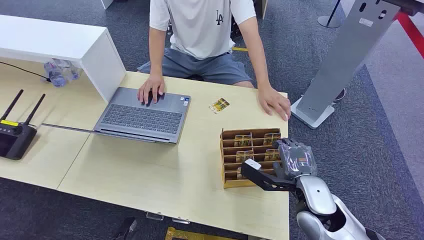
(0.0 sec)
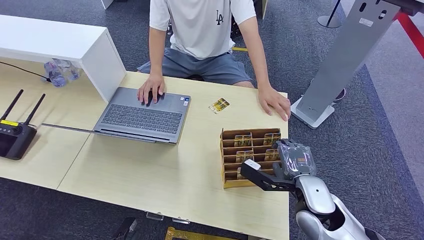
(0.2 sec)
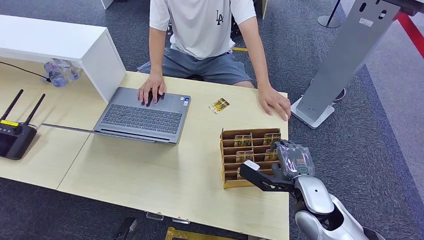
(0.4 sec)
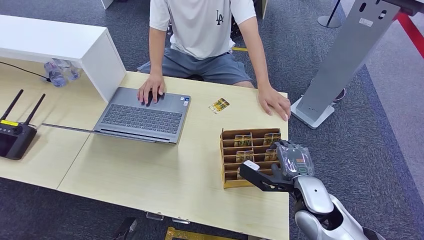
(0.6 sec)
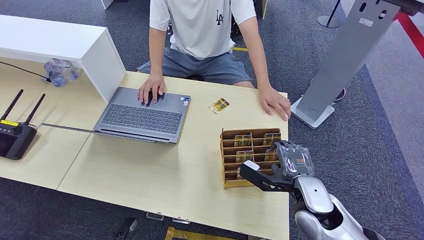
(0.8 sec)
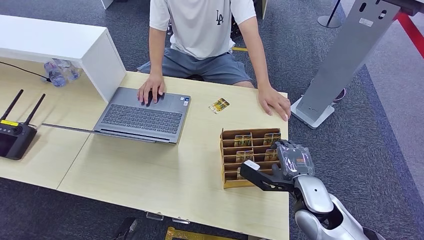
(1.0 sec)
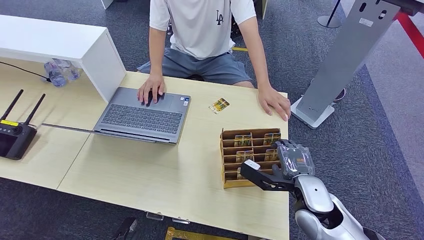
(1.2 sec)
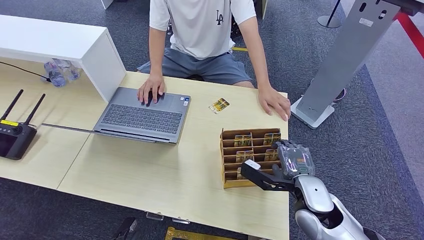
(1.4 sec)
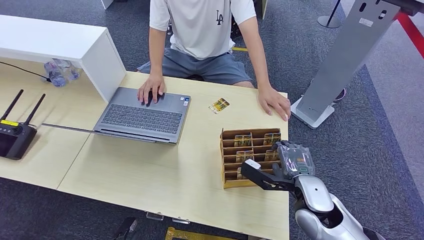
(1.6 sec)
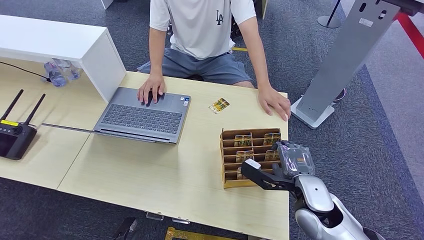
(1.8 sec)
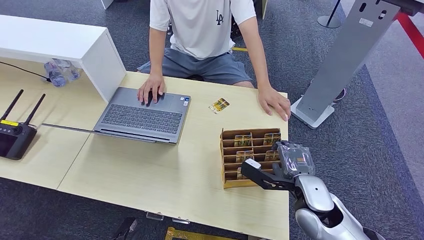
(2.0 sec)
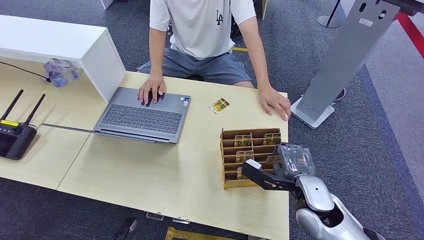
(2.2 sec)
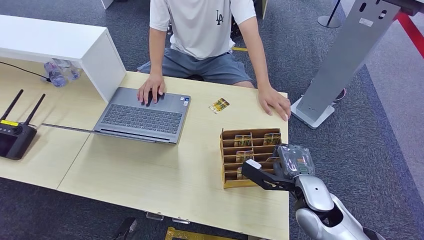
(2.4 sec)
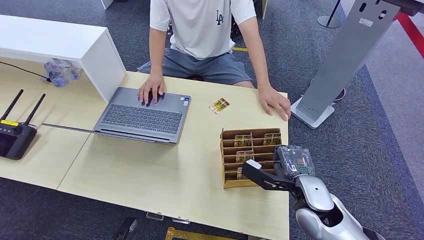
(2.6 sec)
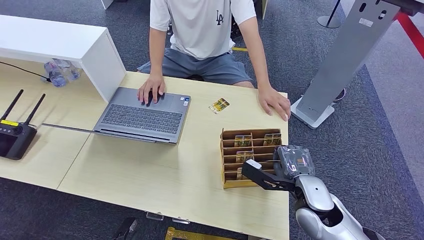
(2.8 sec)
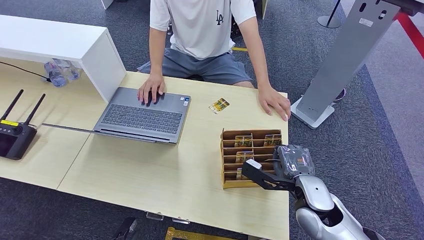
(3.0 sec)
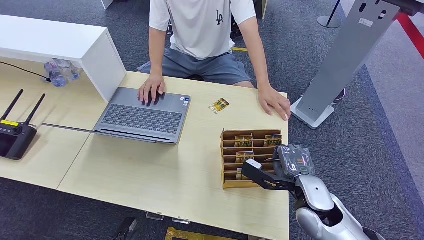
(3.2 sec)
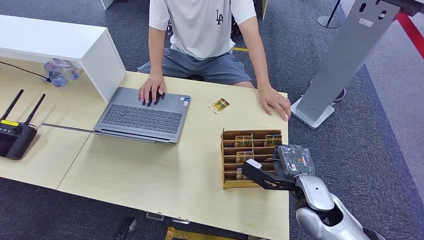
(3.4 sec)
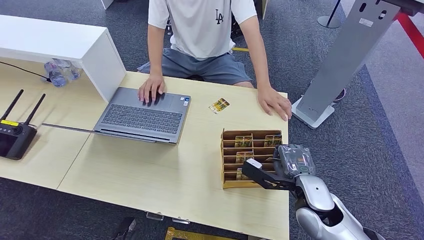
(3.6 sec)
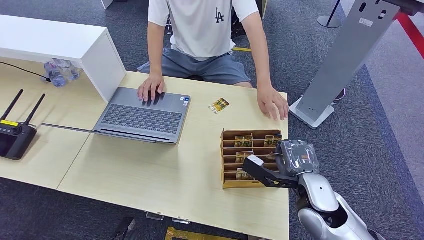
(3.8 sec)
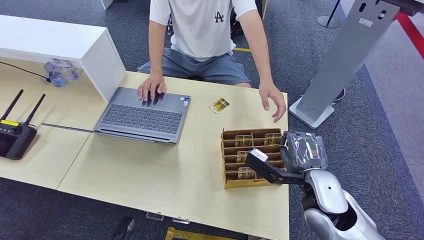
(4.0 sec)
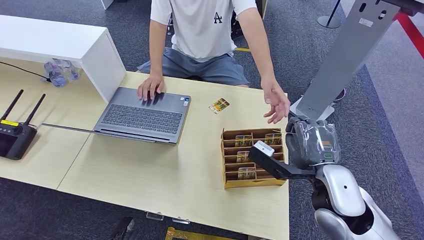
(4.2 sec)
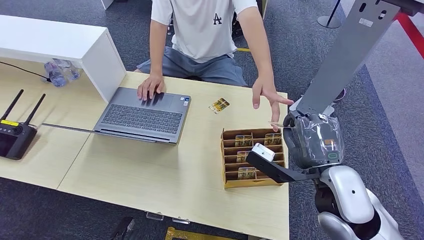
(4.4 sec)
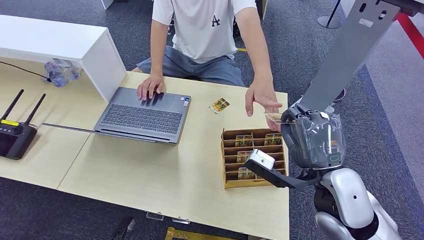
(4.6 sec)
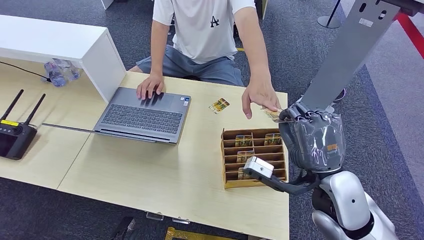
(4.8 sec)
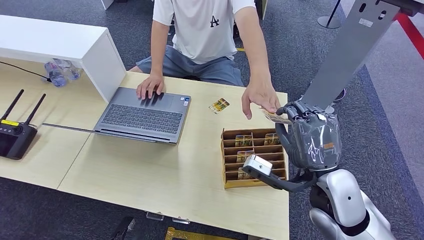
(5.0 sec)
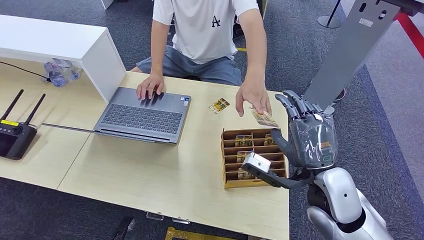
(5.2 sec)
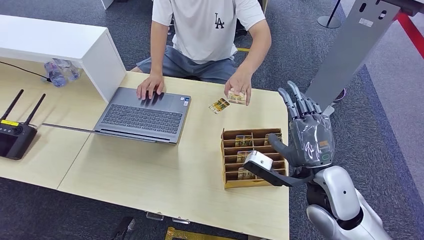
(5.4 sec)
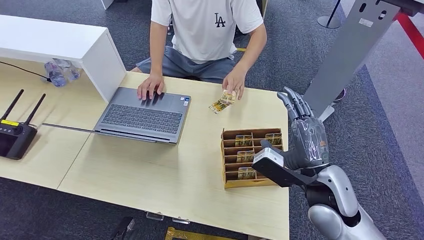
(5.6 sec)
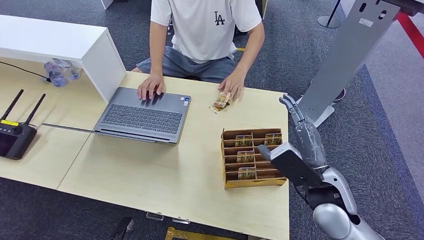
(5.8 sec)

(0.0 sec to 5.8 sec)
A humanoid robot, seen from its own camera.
Step, 0.0 sec - 3.8 sec: Pick up the room card from the card holder.
Step, 4.0 sec - 5.8 sec: Hand the room card to the target.
1.4 sec - 2.8 sec: The two hands keep their place.
2.8 sec - 4.4 sec: The right hand goes about 10 cm upward.
4.4 sec - 5.8 sec: The right hand changes place by approximately 5 cm.

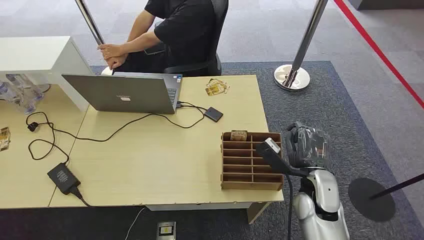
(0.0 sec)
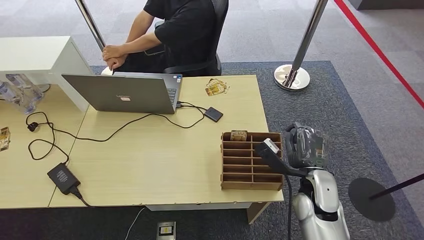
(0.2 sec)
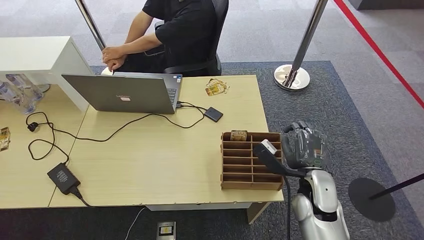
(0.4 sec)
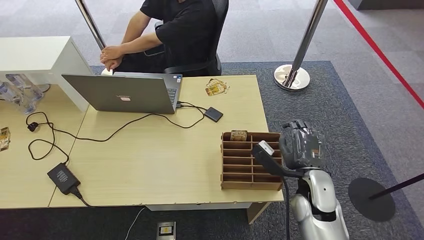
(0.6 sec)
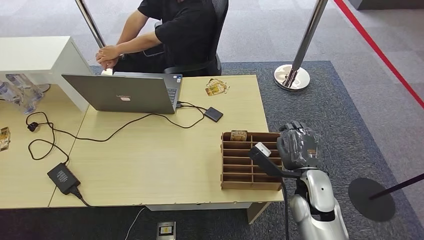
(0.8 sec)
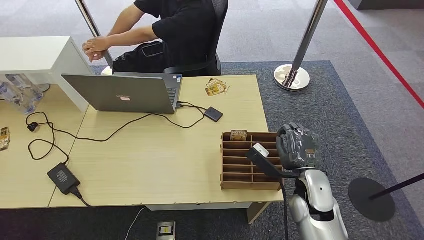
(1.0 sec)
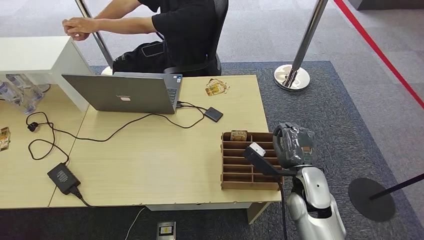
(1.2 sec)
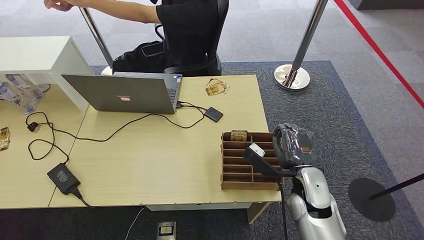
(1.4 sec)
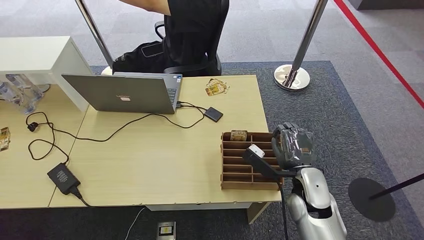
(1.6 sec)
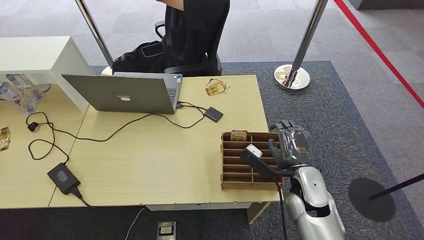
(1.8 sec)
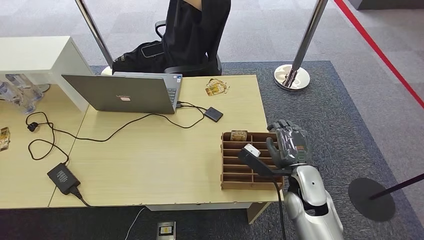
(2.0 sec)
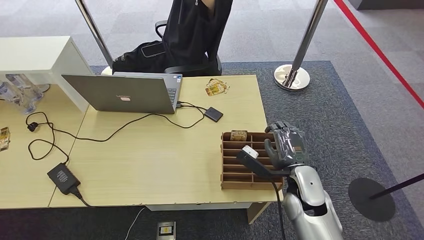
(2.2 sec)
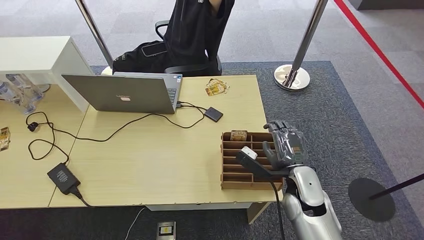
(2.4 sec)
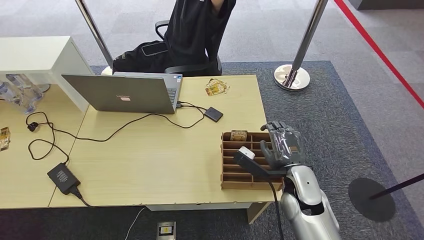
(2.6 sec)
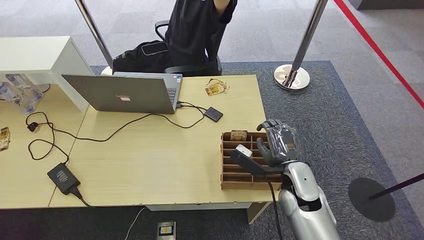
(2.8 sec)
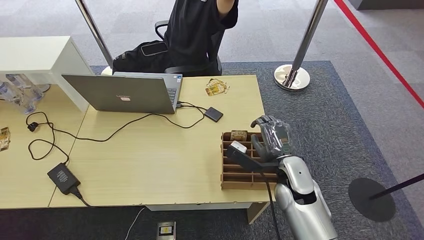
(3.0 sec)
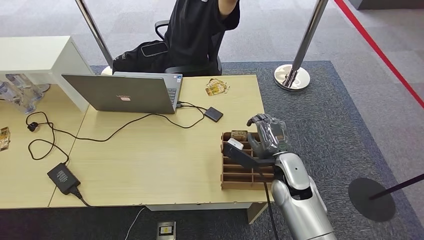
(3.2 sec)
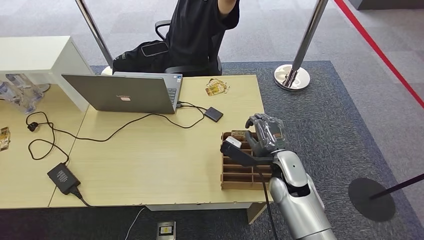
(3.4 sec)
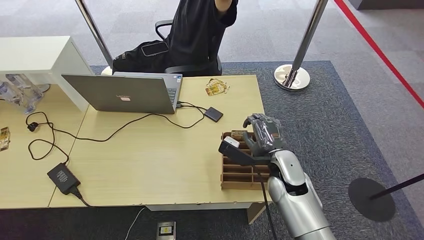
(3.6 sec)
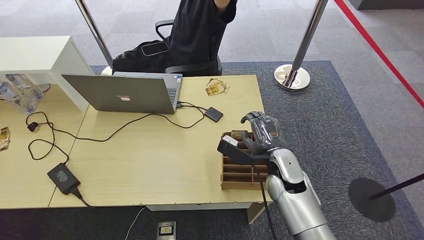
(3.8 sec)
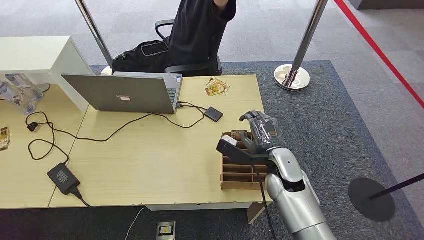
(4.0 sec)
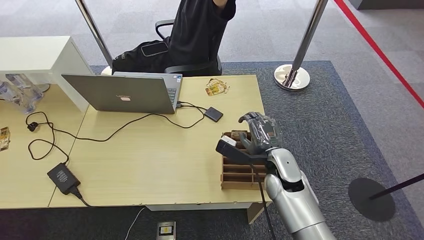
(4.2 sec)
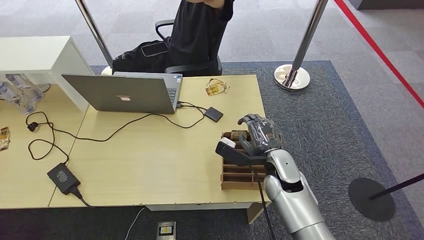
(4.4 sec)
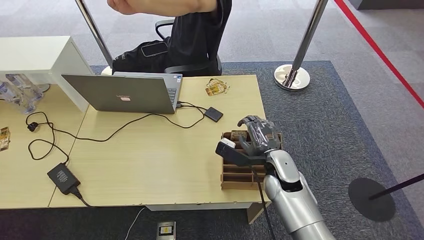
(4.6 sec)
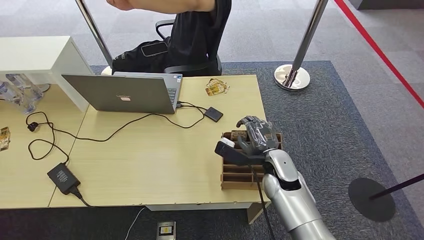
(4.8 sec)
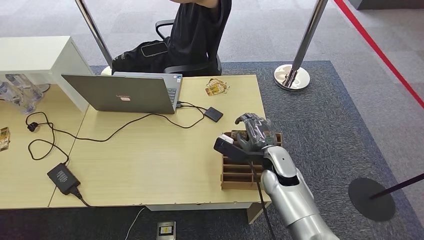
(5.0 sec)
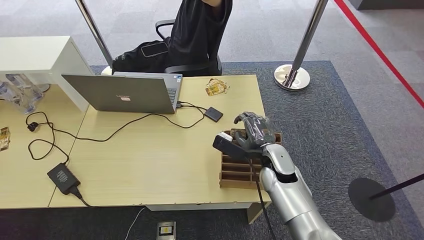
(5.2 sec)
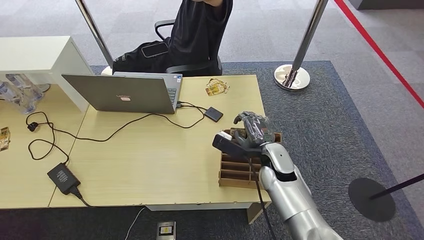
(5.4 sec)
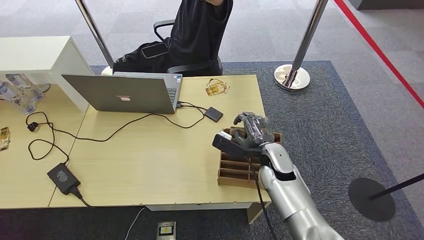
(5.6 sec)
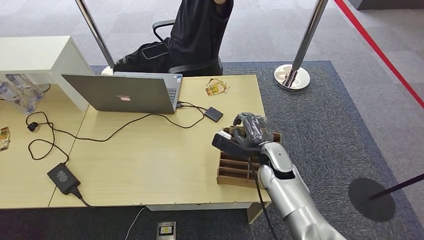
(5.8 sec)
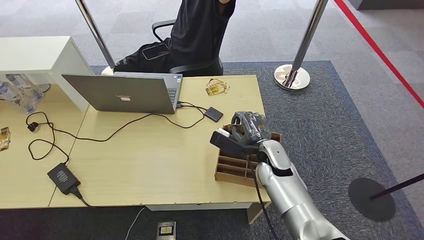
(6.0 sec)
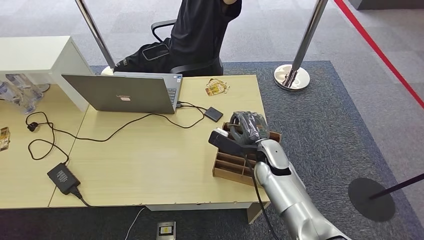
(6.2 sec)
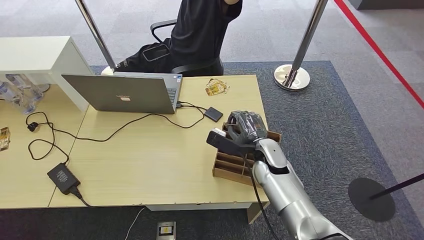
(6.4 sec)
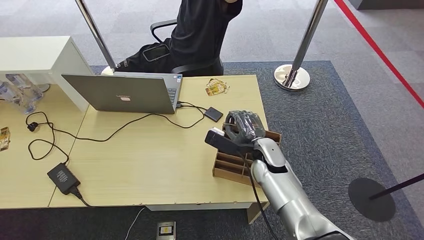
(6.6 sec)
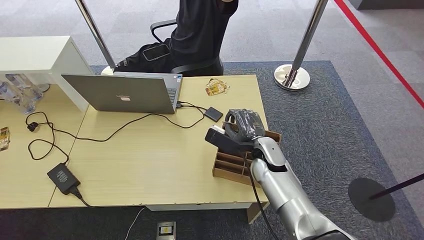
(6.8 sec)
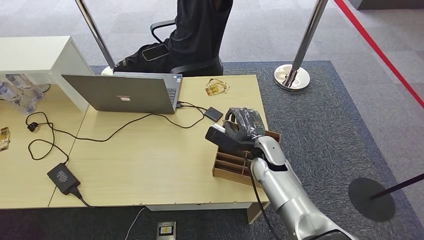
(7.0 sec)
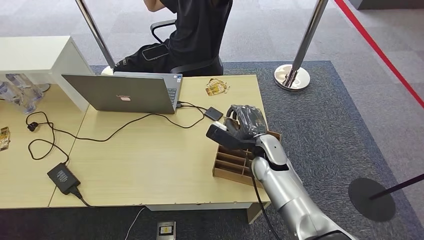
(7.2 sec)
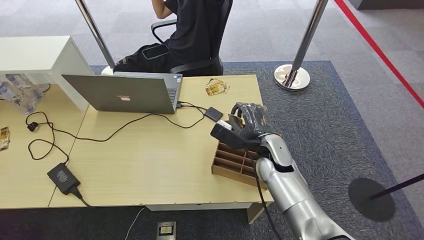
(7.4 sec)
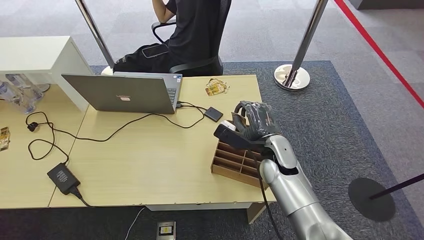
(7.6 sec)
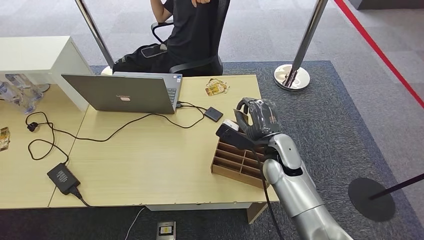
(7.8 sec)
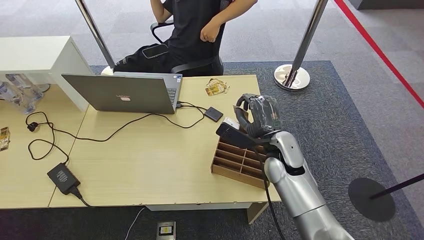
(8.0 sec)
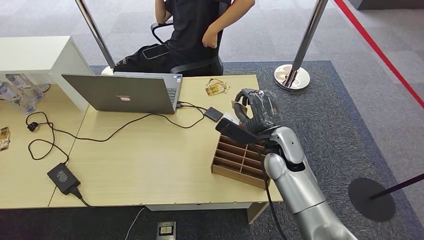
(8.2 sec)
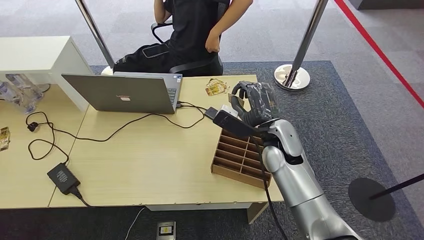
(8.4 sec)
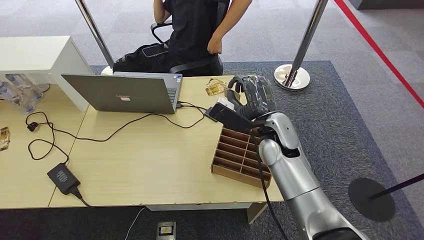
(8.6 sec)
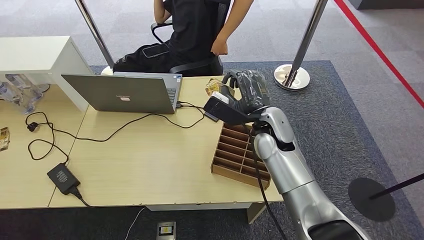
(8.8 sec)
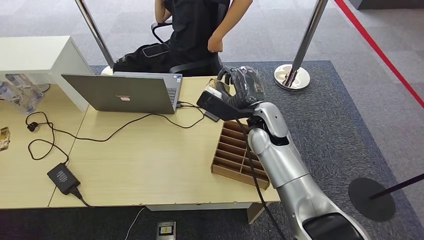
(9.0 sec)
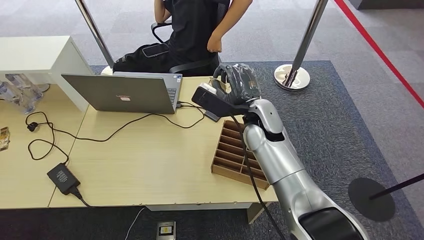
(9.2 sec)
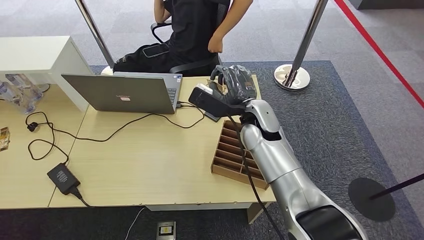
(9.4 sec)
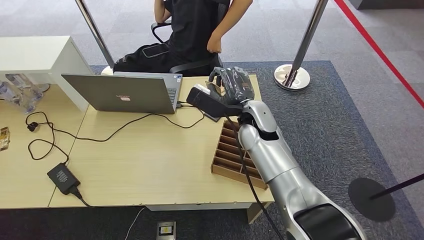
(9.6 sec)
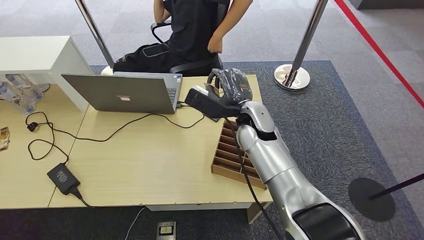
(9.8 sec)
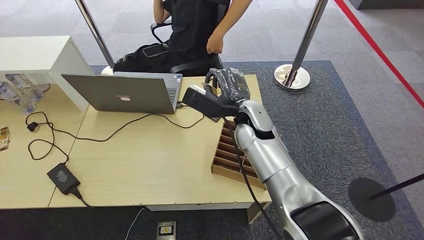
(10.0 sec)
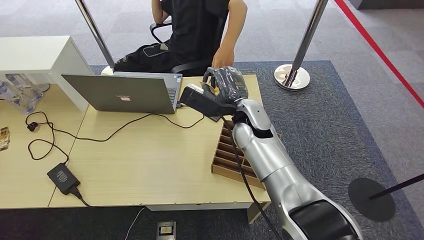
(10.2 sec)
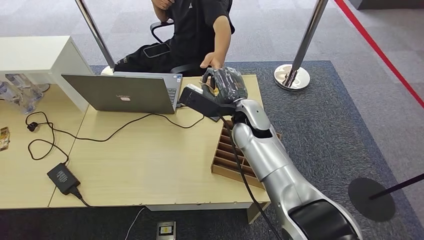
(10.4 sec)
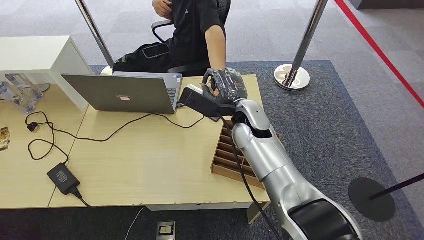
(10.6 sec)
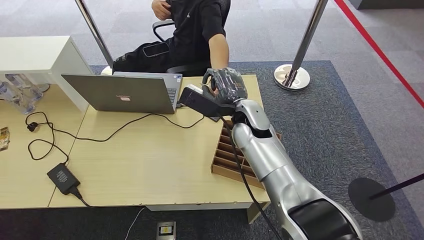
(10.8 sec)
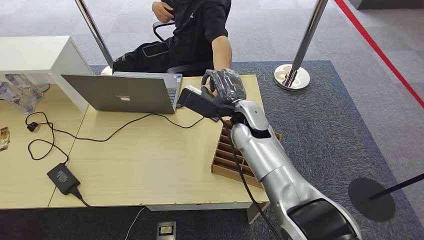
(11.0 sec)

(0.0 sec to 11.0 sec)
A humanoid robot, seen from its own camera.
Step, 0.0 sec - 8.4 sec: Pick up the room card from the card holder.
1.6 sec - 3.2 sec: The hands move only a little.
3.2 sec - 6.2 sec: The hands move only a little.
6.2 sec - 7.8 sec: The hands make only small movements.
7.8 sec - 9.4 sec: The right hand shifts approximately 10 cm upward, to the left and forward.
9.4 sec - 11.0 sec: The hands make only small movements.
